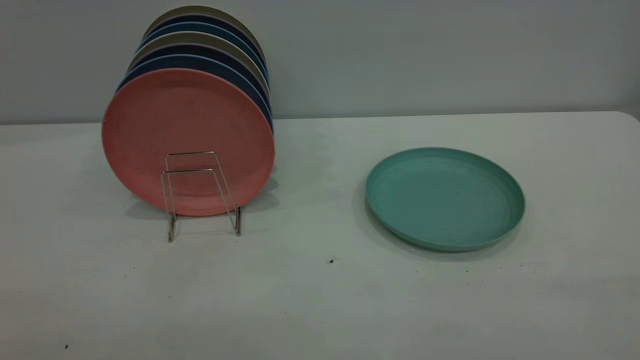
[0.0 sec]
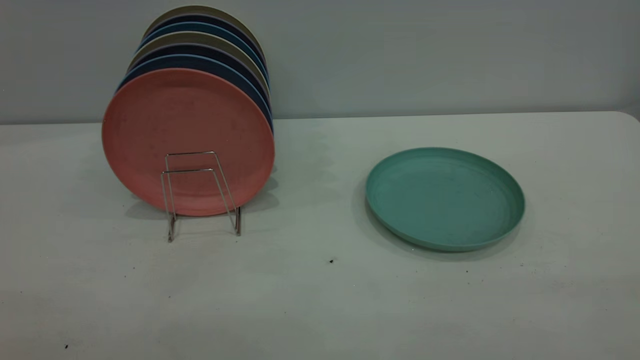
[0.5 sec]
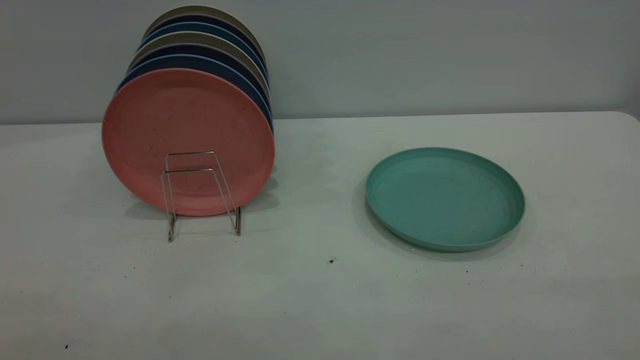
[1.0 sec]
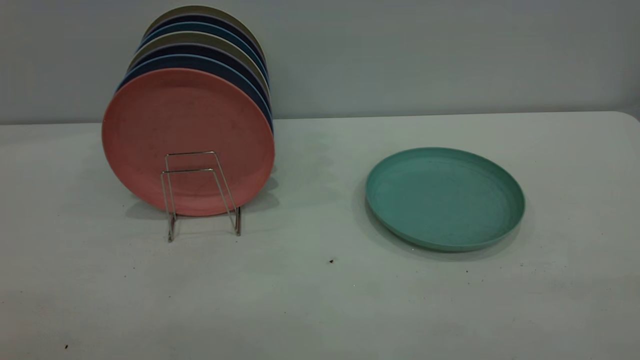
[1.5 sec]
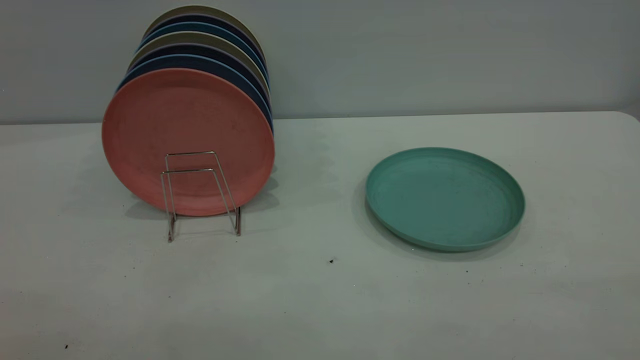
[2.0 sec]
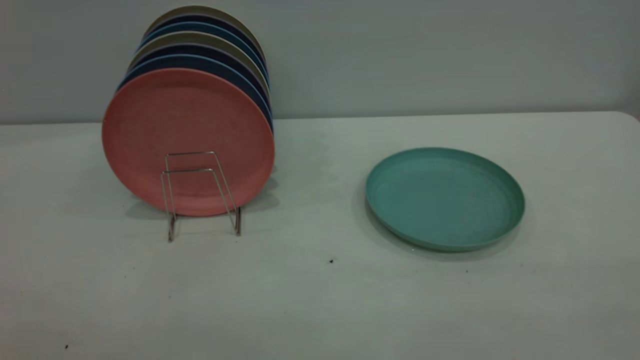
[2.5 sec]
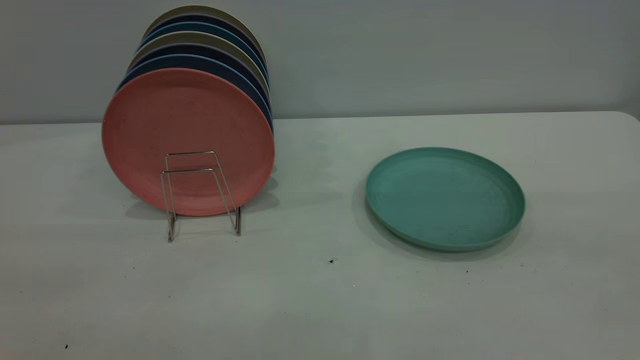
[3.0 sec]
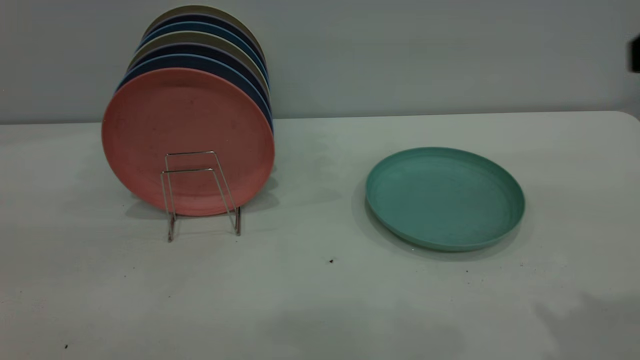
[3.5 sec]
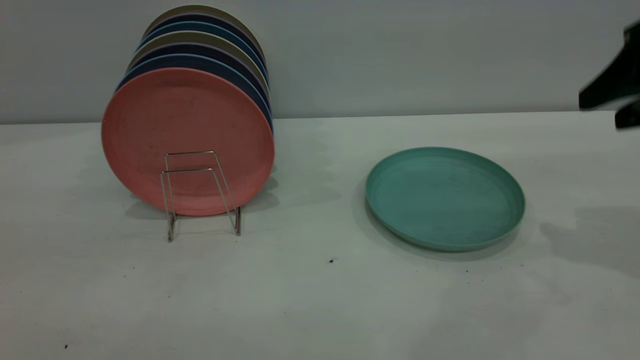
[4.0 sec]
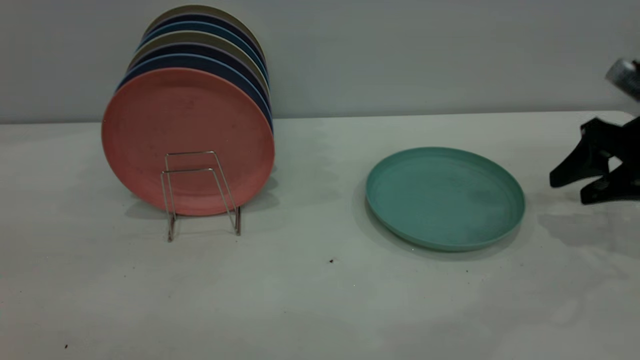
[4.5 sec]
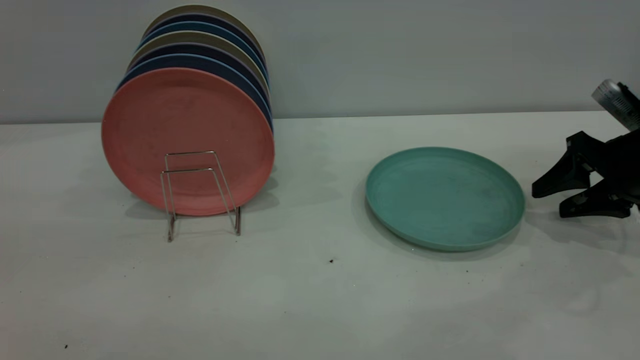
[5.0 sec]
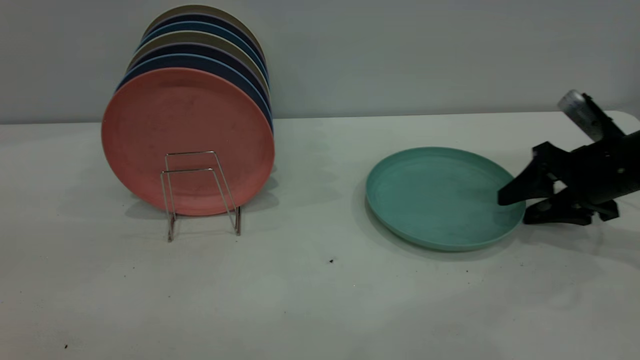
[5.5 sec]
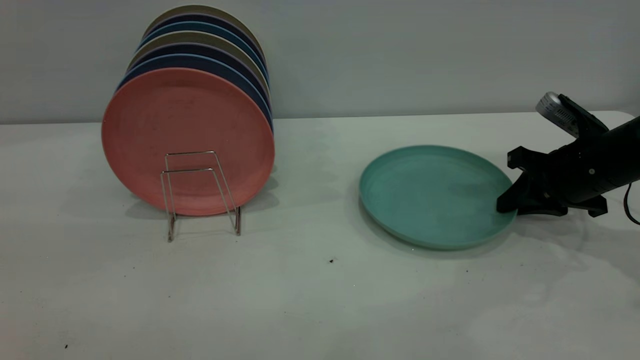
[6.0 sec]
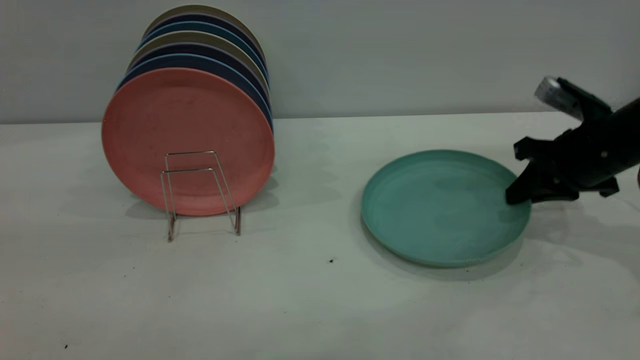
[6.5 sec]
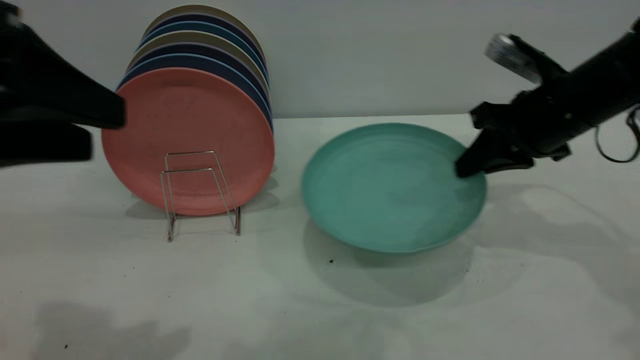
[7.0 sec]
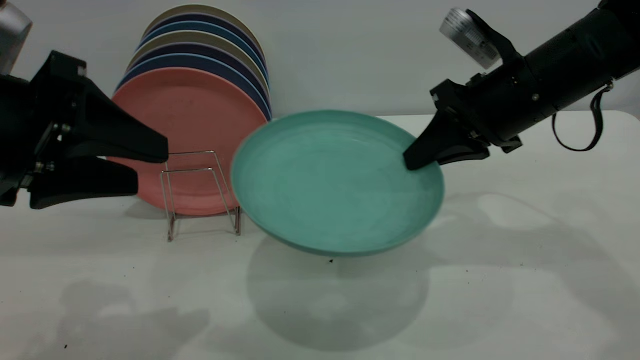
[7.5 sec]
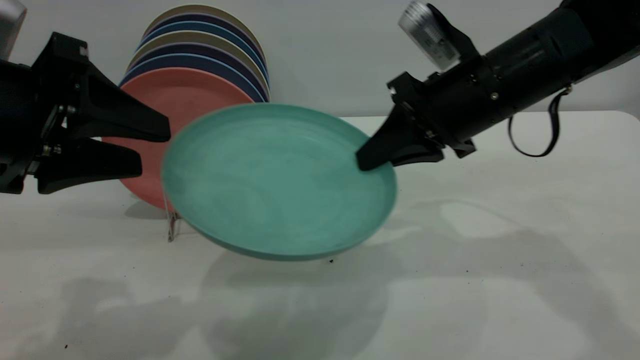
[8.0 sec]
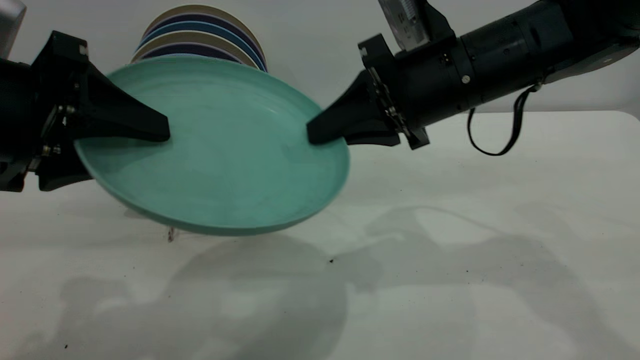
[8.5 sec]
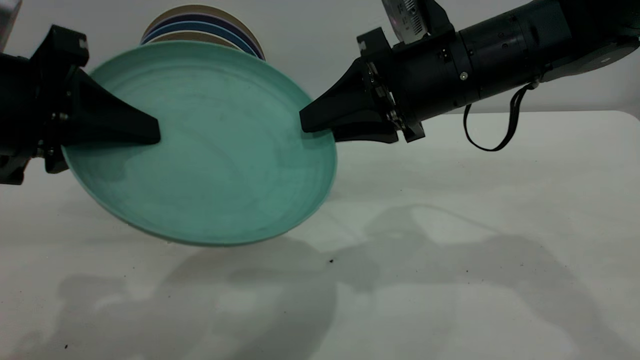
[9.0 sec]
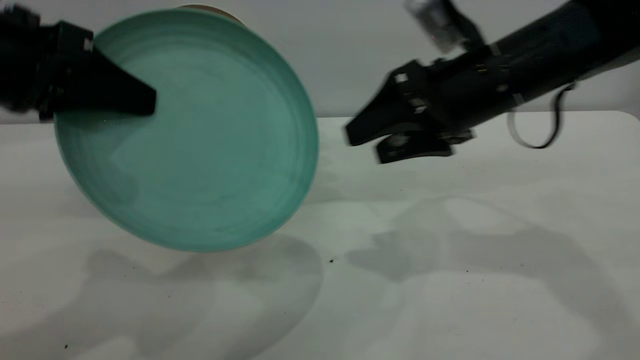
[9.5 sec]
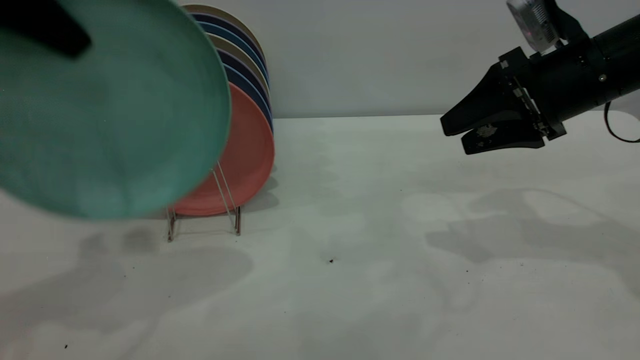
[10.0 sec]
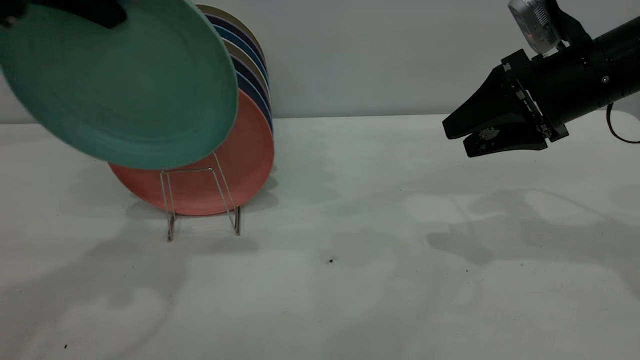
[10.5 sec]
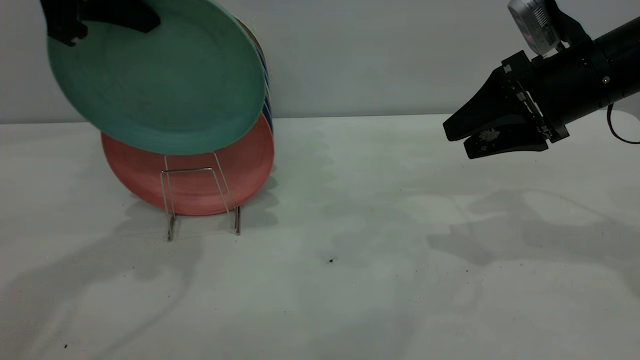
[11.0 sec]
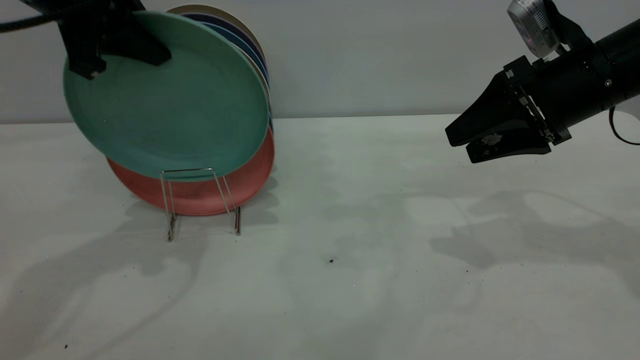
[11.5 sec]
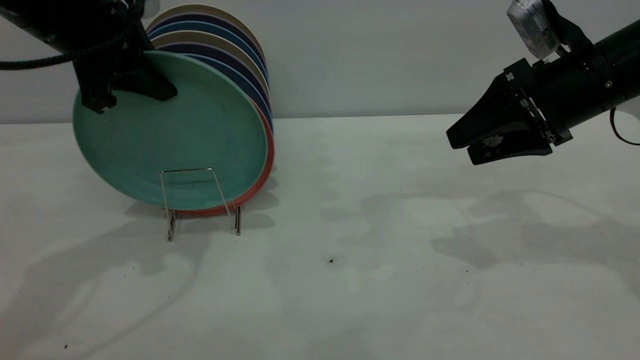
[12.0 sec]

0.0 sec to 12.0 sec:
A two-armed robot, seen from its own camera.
Task of the whole recording: the right gripper grasp the green plate, the right gripper pass the green plate to the left gripper, and the left gripper place the green plate on the plate rack.
Step, 0.0 sec to 6.5 sec: Pick up the plate with the right gripper.
Step, 7.0 sec to 9.0 sec: Pass the plate from the right gripper to the left gripper.
0.0 sec to 2.0 sec: Neither gripper changes place.
2.0 sec to 4.0 sec: The right gripper shifts roughly 35 cm forward.
4.0 sec to 6.0 sec: The right gripper moves downward and forward, approximately 15 cm, and closes its fingers.
6.0 sec to 8.0 sec: The left gripper goes approximately 15 cm downward and forward. Meanwhile the right gripper heads to the left and upward, covering roughly 20 cm.
8.0 sec to 10.0 sec: The left gripper is displaced upward and forward by roughly 15 cm, and closes its fingers; the right gripper is displaced to the right by about 10 cm, and opens up.
10.0 sec to 12.0 sec: The left gripper travels downward and forward by about 10 cm.

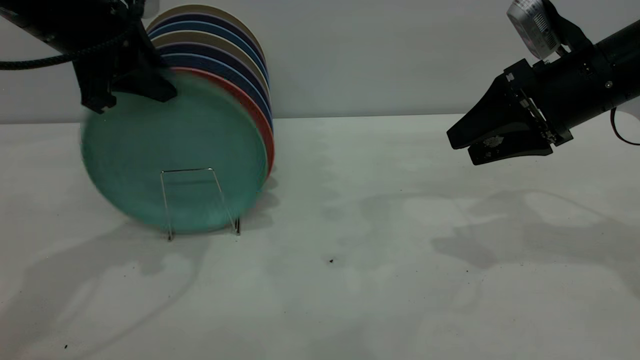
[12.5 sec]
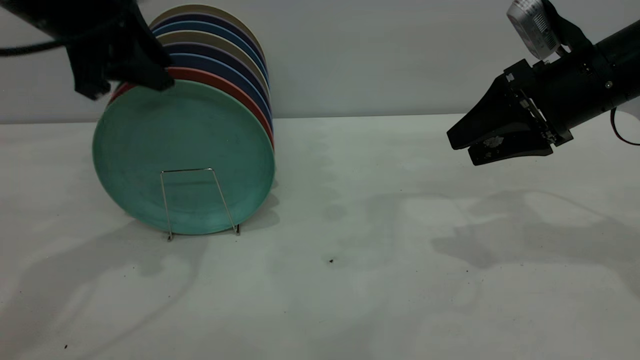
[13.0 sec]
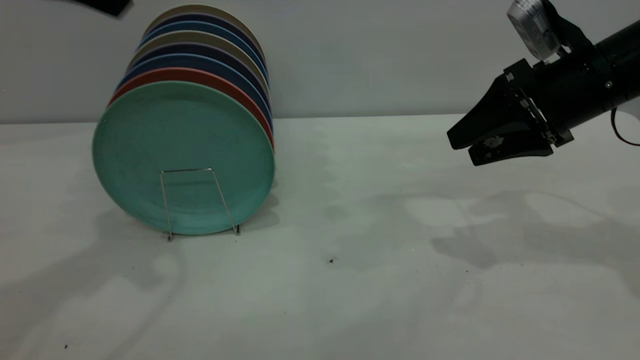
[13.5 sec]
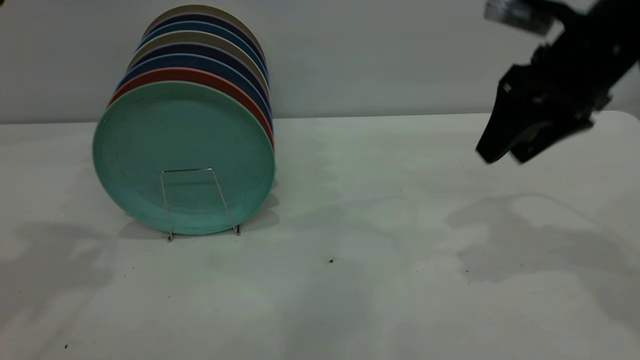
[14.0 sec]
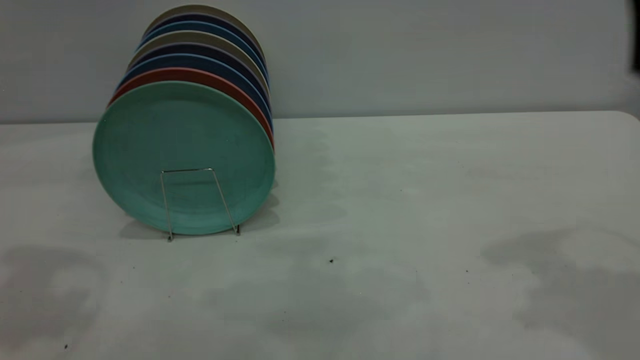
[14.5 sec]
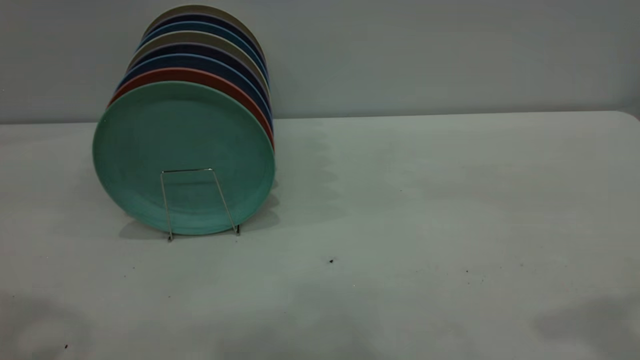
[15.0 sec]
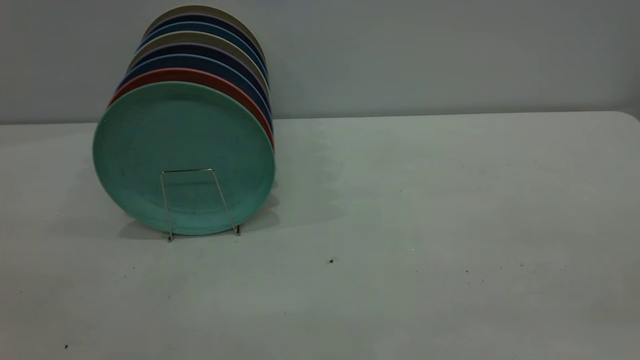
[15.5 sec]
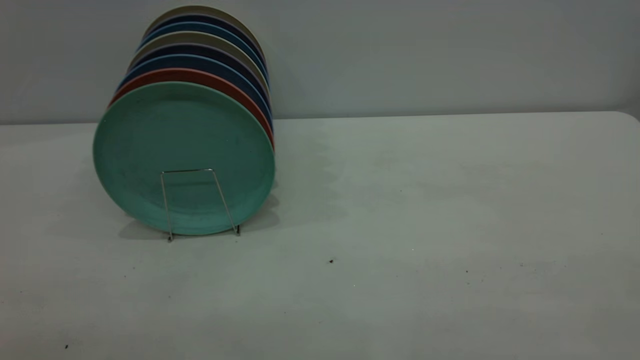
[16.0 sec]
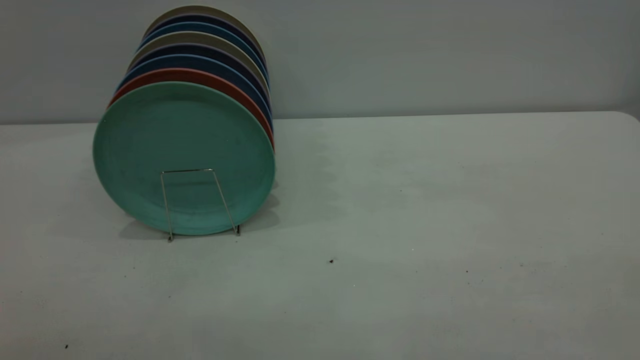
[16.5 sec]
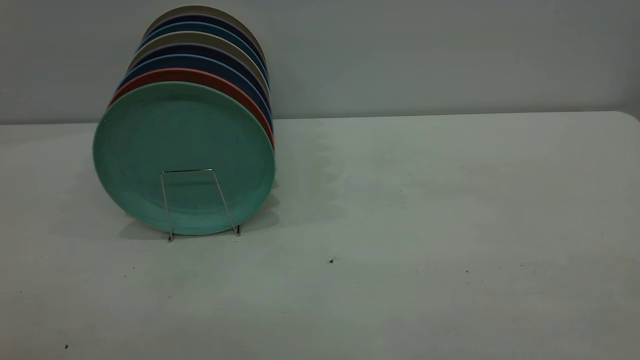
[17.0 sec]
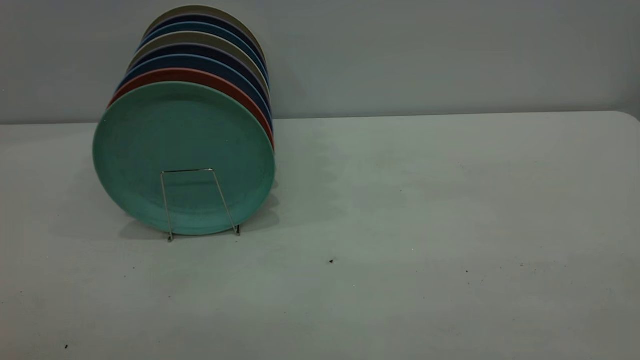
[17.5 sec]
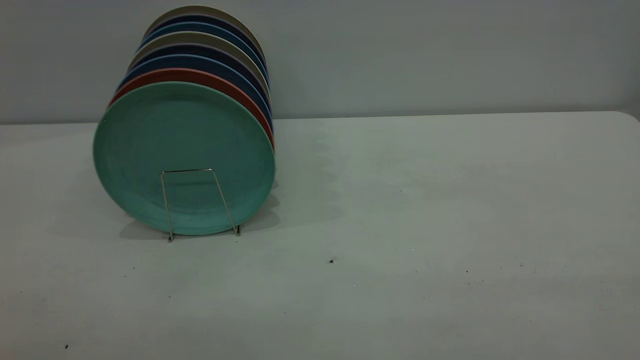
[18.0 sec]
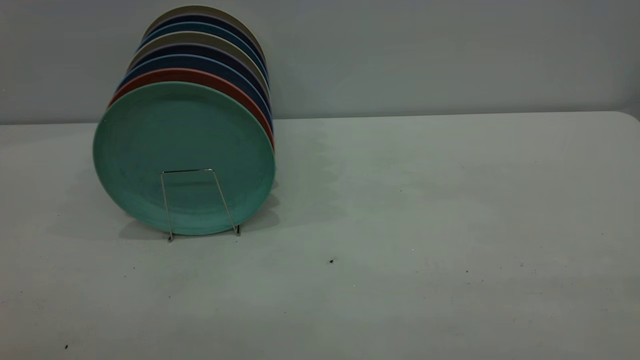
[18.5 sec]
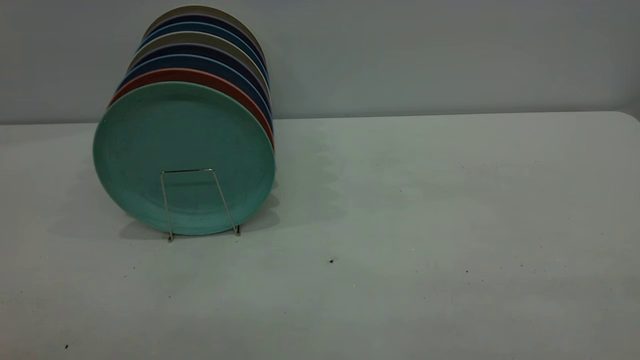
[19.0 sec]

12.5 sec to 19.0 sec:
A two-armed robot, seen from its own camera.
Task of the whole recording: the right gripper grasp the green plate, the right gripper pass the green plate to the left gripper, and the left gripper place the green plate on the plate rack.
12.5 sec to 14.5 sec: The left gripper is displaced upward, backward and to the left by approximately 20 cm, and opens. Meanwhile the right gripper goes roughly 20 cm upward and backward.
